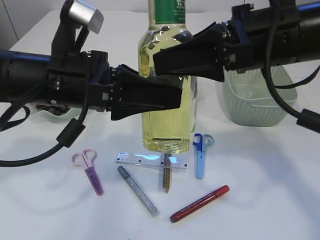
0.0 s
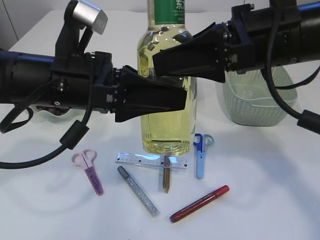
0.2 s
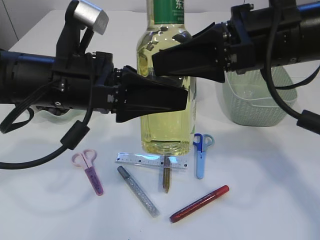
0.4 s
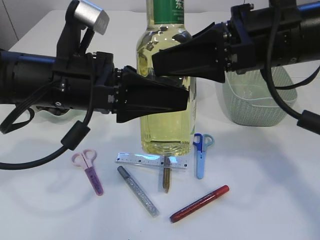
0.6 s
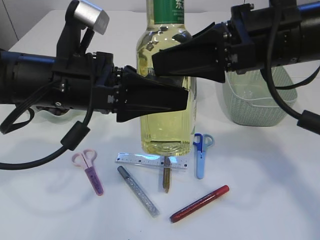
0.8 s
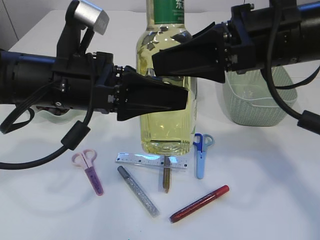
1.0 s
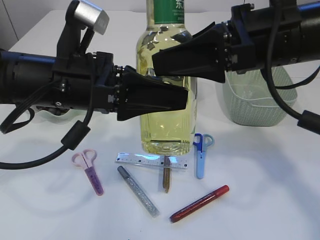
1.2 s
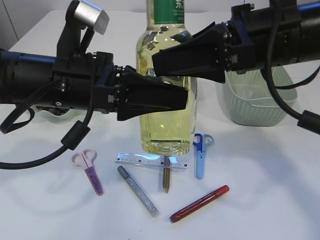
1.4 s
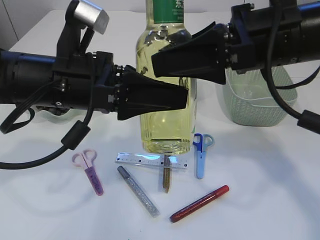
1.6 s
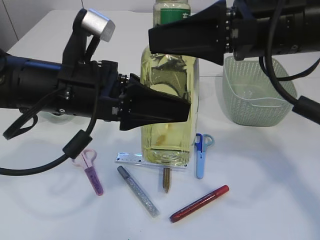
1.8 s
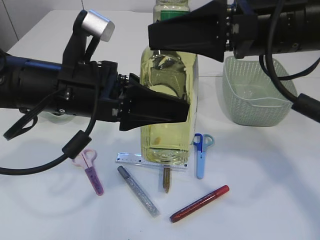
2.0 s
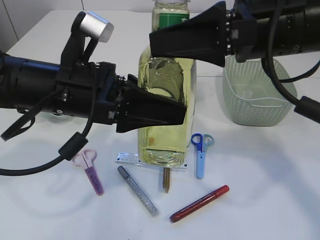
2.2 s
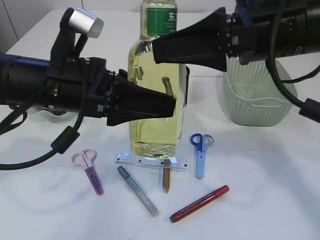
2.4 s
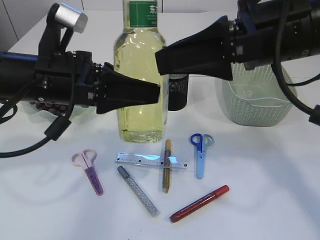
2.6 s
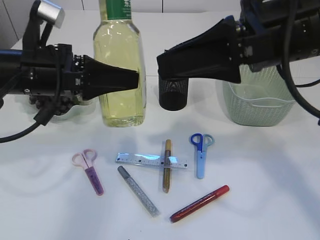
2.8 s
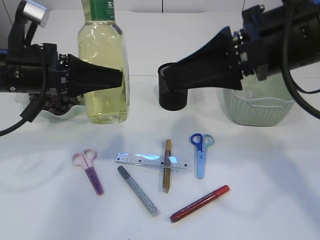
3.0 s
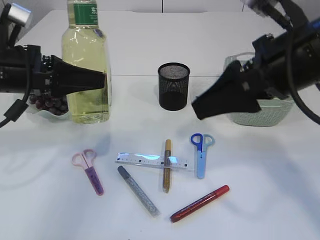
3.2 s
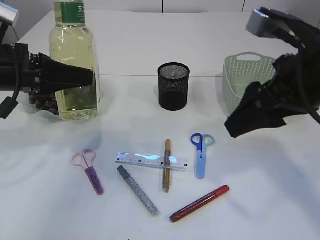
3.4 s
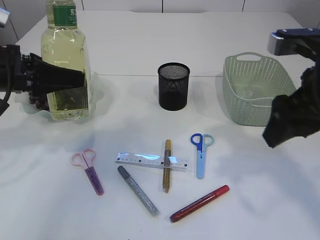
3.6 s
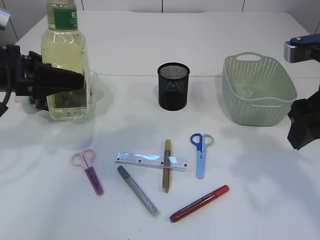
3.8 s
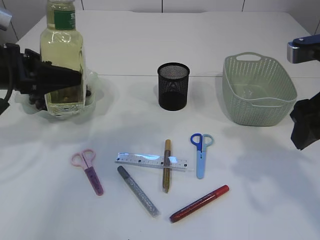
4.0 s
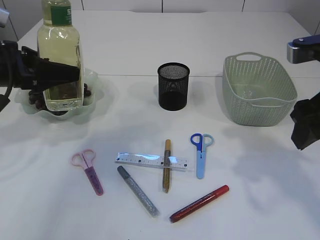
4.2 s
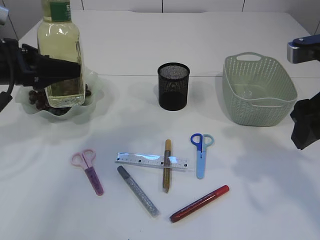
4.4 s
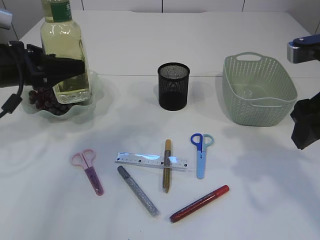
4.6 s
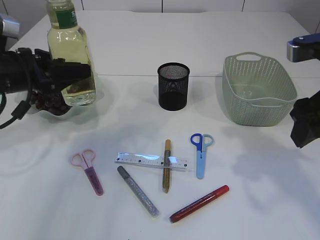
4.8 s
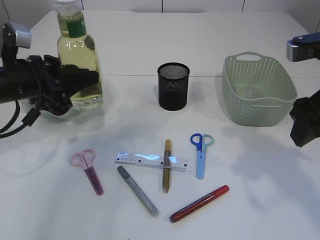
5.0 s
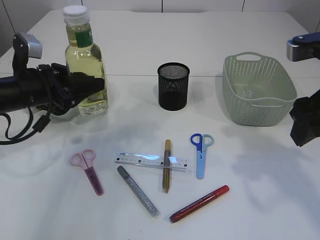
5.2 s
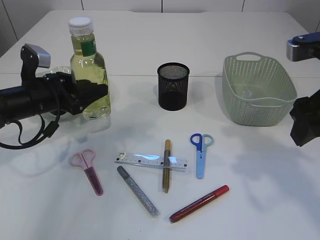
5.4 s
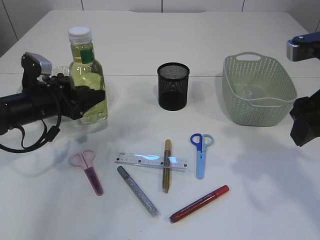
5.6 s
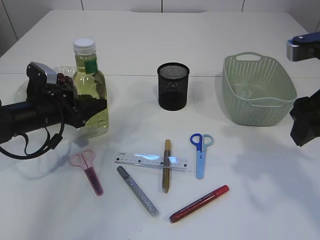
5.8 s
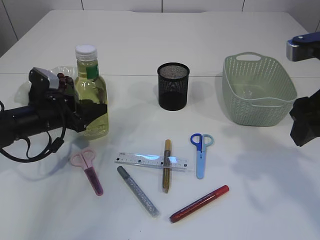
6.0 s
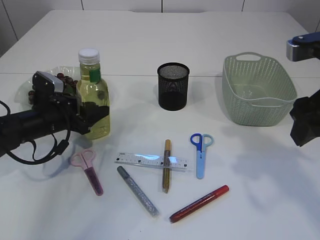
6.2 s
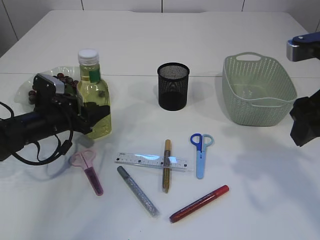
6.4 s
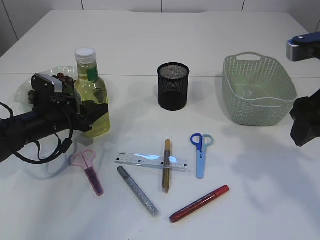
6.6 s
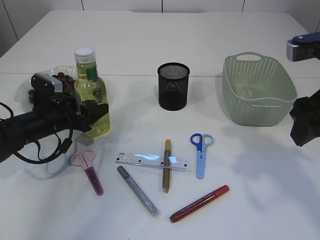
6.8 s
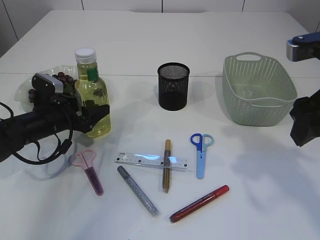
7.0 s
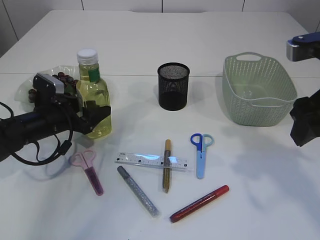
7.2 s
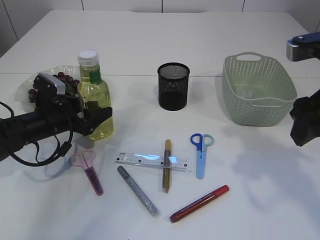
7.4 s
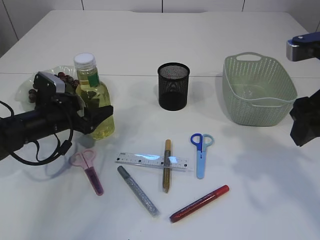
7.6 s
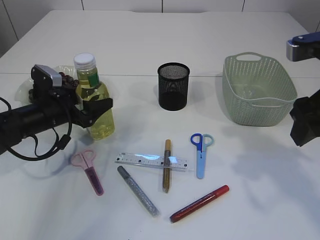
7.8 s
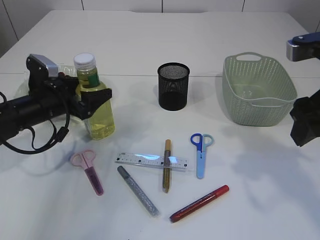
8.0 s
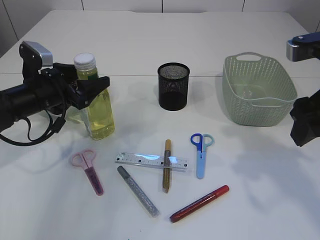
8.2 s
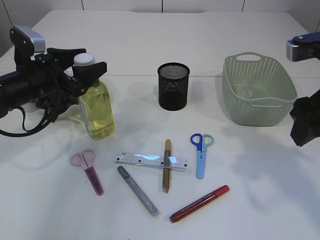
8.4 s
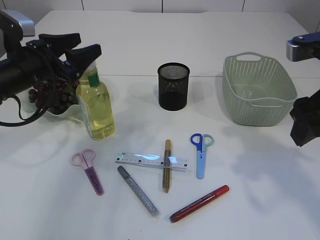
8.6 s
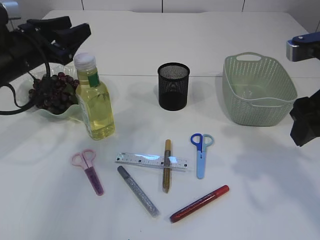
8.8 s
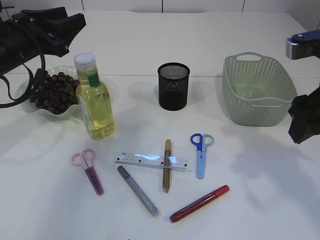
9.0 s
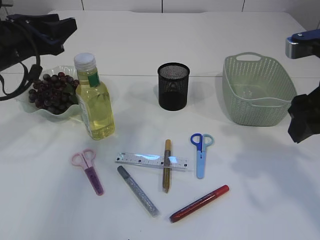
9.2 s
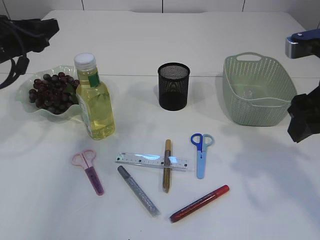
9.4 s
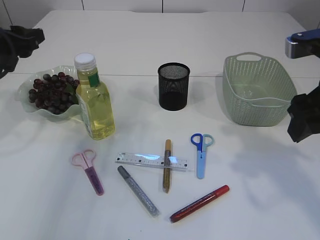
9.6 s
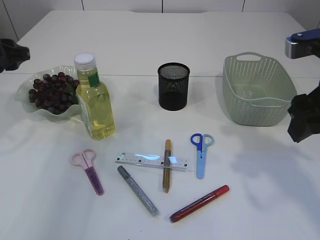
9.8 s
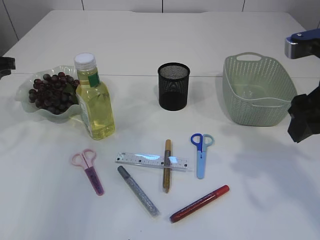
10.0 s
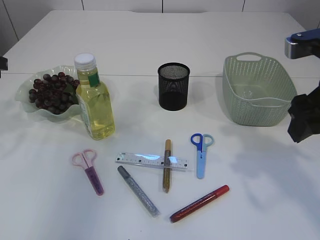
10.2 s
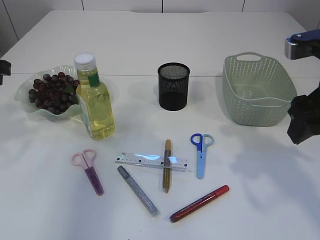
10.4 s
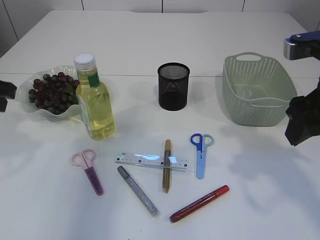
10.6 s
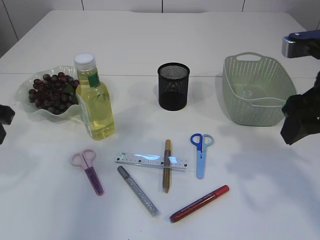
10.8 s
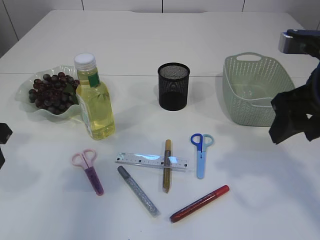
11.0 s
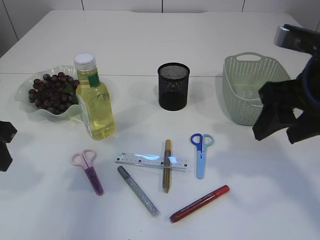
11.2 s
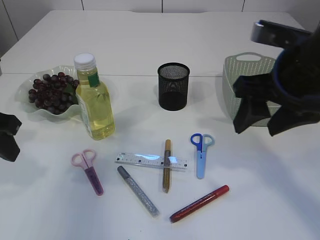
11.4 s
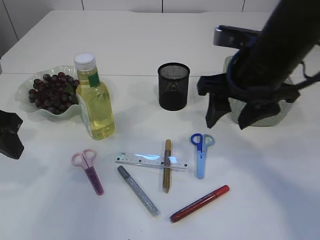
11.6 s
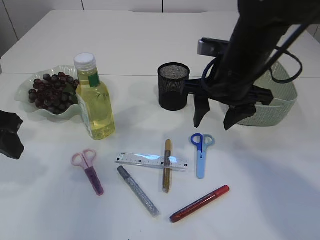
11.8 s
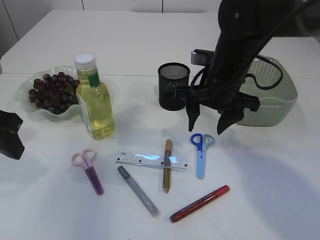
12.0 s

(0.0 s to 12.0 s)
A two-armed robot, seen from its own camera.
Step, 0.0 s - 3.0 s: transfer the bottle to the left arm.
Step, 3.2 s - 8.6 s: Place the bottle.
0.0 s - 1.6 s: The left gripper closes its fingers.
1.6 s - 3.0 s: The left gripper heads to the left, covering roughly 10 cm.
3.0 s - 4.4 s: The left gripper travels to the left by some 5 cm. The right gripper shifts approximately 10 cm to the right.
4.4 s - 6.0 s: The left gripper goes some 15 cm downward.
6.0 s - 7.6 s: The left gripper opens its fingers.
7.6 s - 9.0 s: The left gripper shifts roughly 15 cm upward, and closes its fingers.
9.0 s - 10.4 s: The left gripper moves backward and to the left, approximately 10 cm.
10.4 s - 12.0 s: The right gripper moves to the left, forward and downward, approximately 20 cm. The left gripper travels backward by roughly 5 cm.

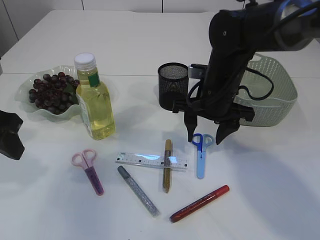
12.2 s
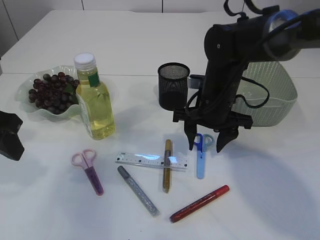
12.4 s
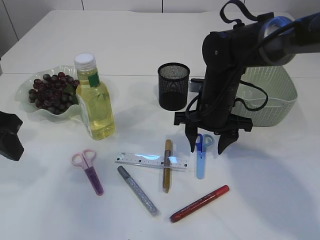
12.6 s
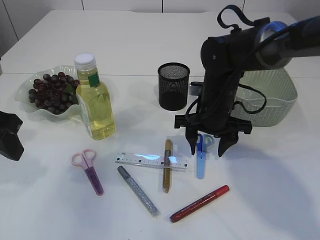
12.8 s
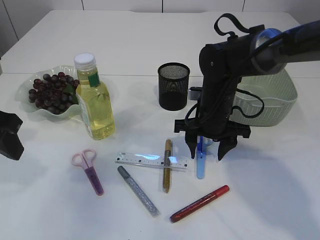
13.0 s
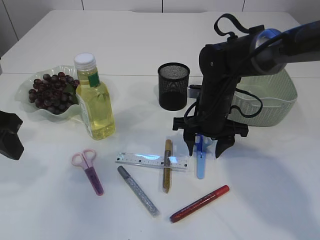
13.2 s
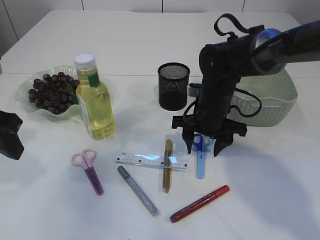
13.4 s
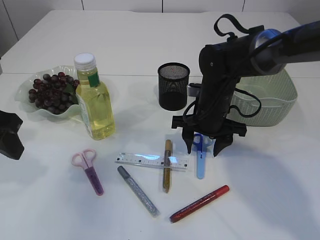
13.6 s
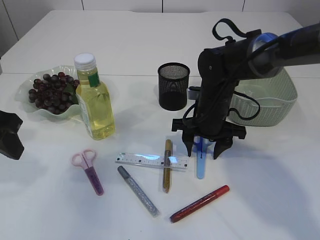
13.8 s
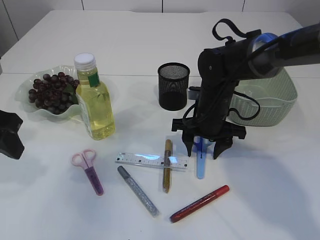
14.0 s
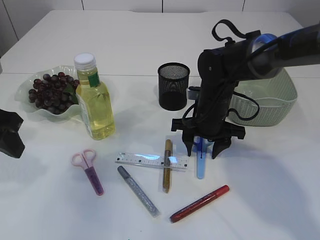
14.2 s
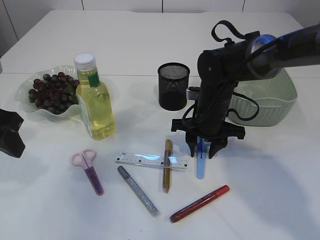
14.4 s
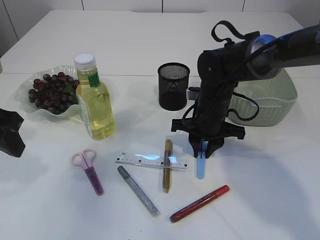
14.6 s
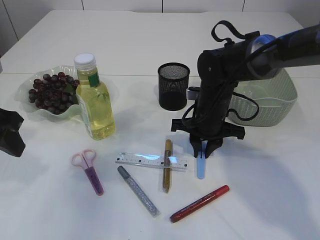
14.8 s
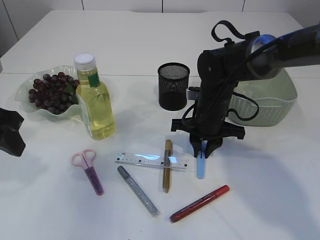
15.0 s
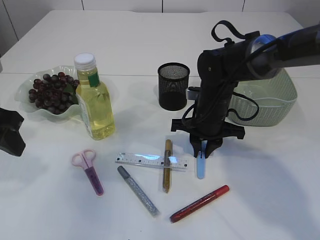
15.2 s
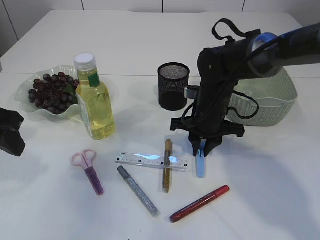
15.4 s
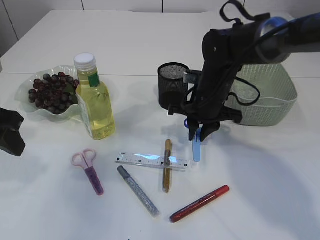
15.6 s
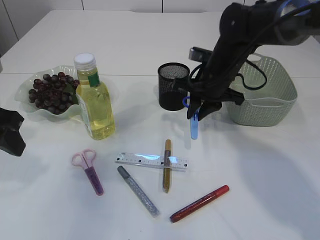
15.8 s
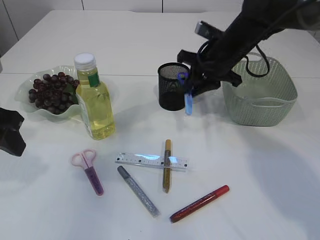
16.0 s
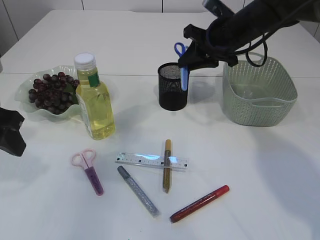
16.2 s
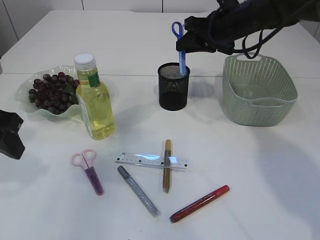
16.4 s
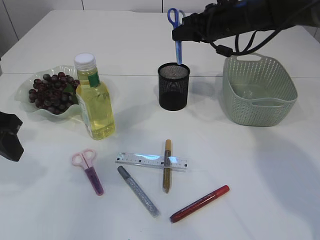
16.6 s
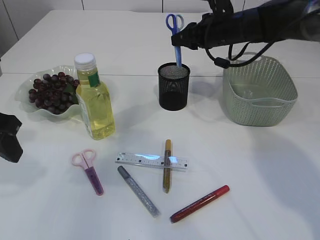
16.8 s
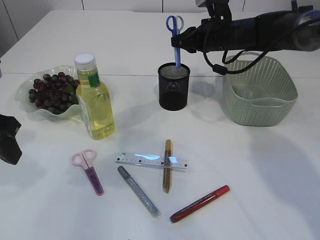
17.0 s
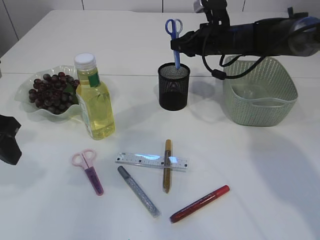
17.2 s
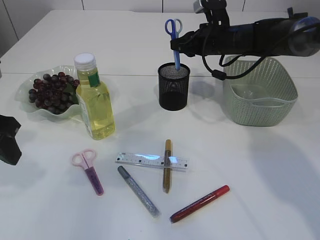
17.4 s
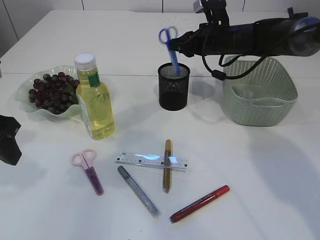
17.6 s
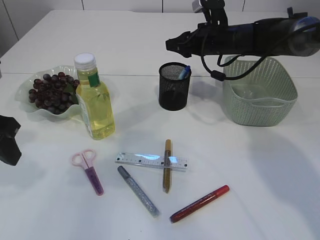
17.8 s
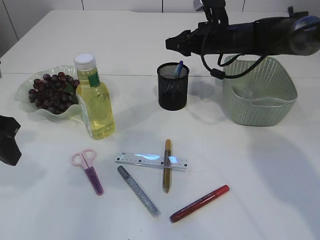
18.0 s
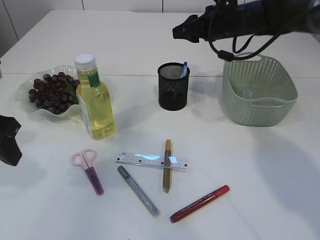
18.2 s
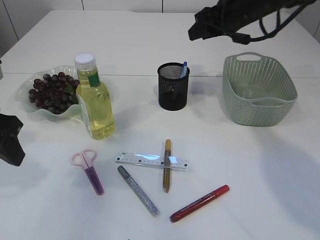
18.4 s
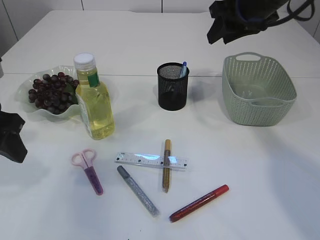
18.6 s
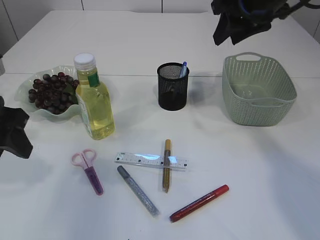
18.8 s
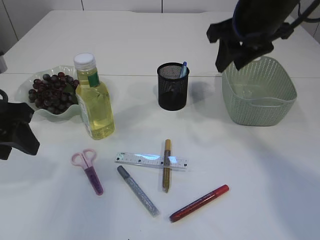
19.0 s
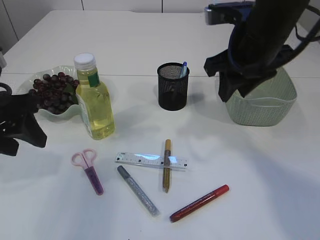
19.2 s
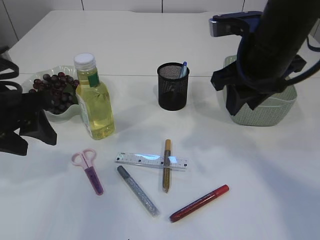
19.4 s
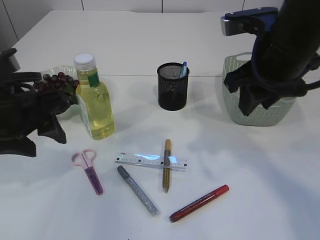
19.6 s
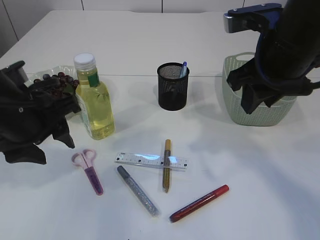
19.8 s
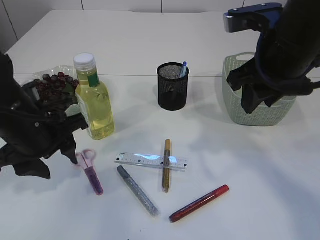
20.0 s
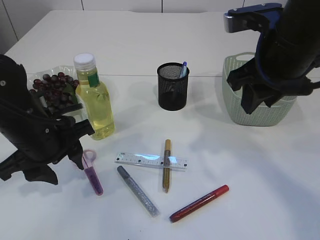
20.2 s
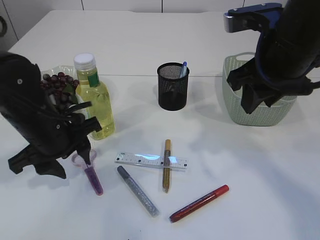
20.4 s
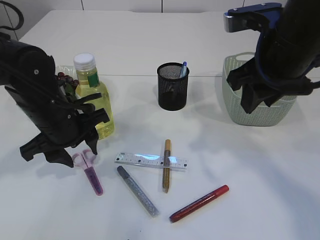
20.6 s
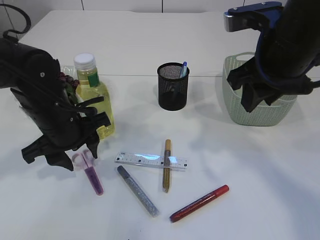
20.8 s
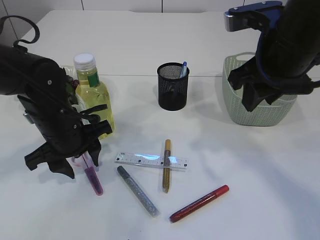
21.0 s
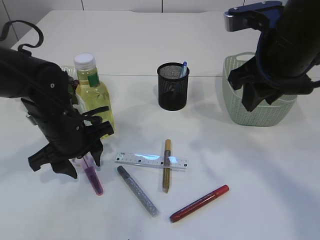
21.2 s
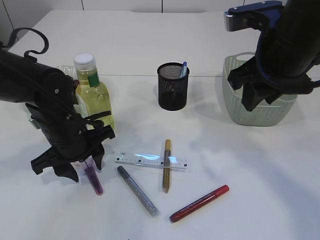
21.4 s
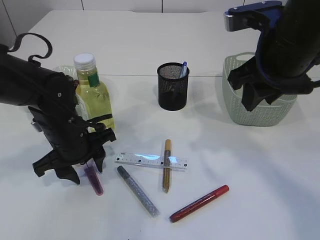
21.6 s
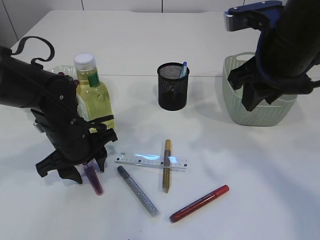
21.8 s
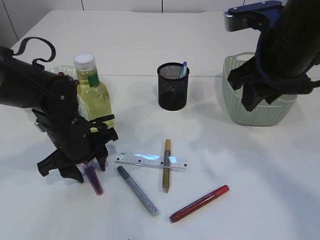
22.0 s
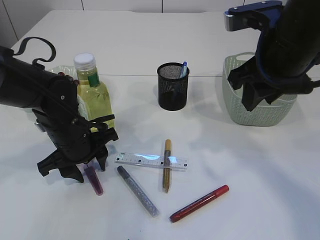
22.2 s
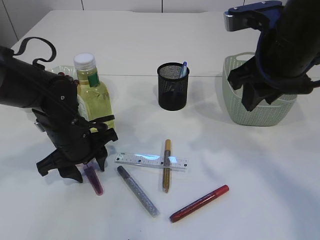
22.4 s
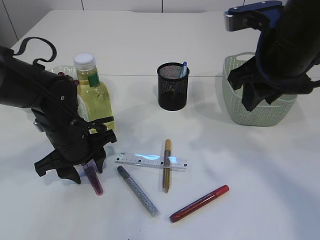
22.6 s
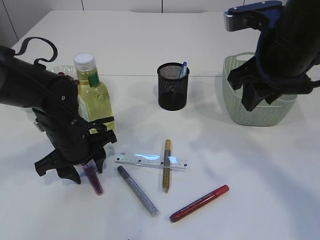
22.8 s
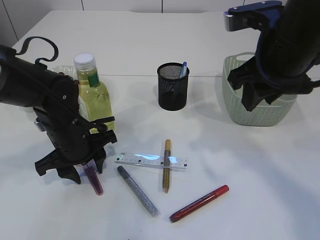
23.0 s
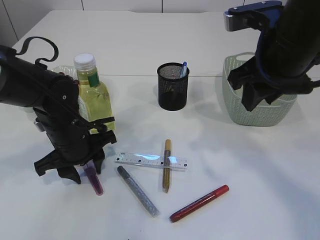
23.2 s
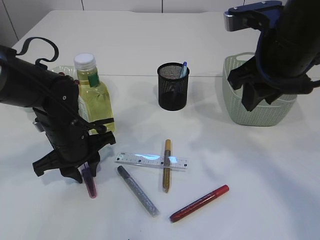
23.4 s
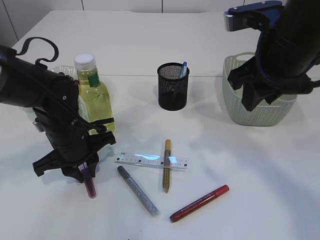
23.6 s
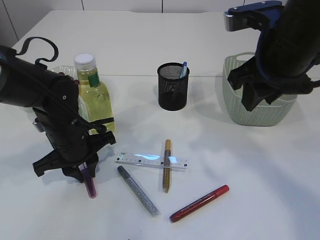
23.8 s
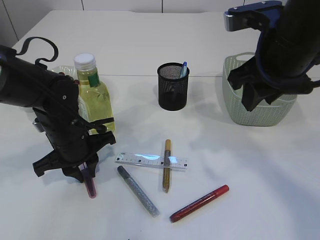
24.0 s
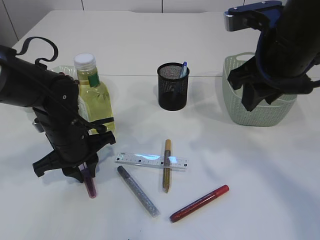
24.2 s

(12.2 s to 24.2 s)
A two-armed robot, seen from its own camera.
Step, 12.2 s - 15.6 s: pick up the blue scissors.
Step, 15.8 s - 18.4 s: Place the blue scissors into the pen holder.
12.2 s - 13.8 s: The right gripper shifts roughly 5 cm downward.
13.8 s - 15.2 s: The right gripper closes.
15.2 s - 16.6 s: The right gripper goes about 15 cm upward and forward.
16.6 s - 18.2 s: The grippers move only a little.
18.2 s - 19.8 s: The left gripper heads to the right, covering about 5 cm. Meanwhile the right gripper is displaced backward by some 20 cm.
19.8 s - 21.2 s: The left gripper is displaced downward and forward by some 10 cm.
21.2 s - 22.6 s: The grippers move only a little.
22.6 s - 24.2 s: The left gripper closes.
